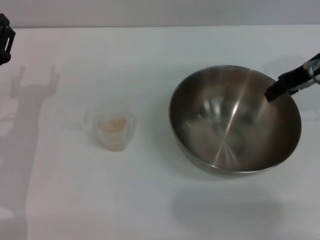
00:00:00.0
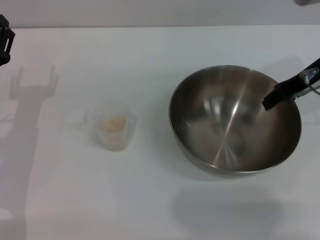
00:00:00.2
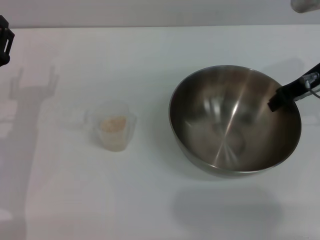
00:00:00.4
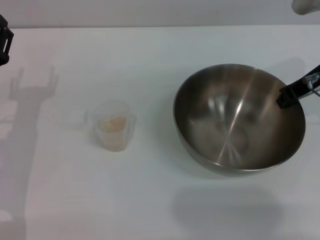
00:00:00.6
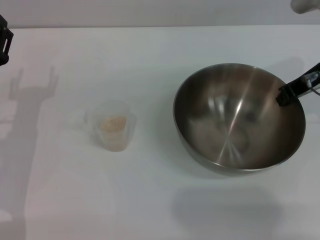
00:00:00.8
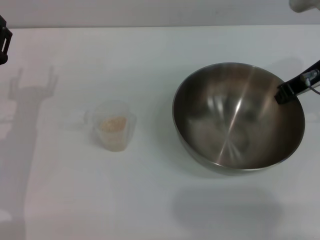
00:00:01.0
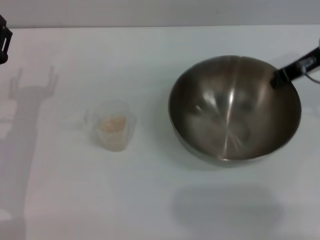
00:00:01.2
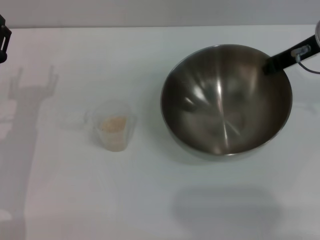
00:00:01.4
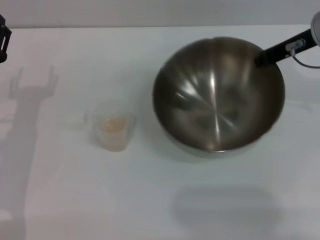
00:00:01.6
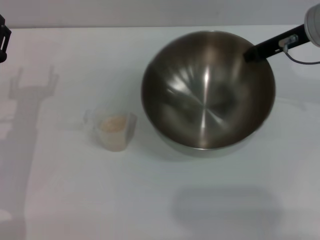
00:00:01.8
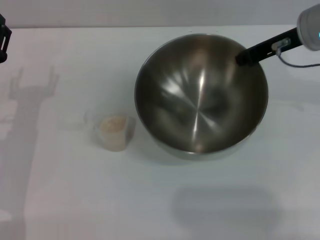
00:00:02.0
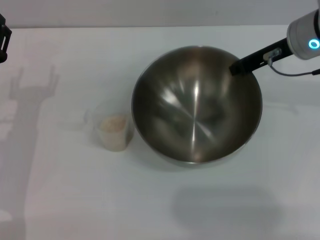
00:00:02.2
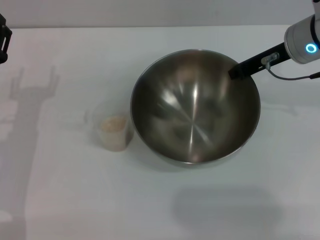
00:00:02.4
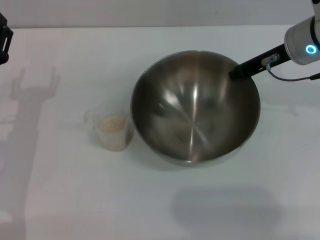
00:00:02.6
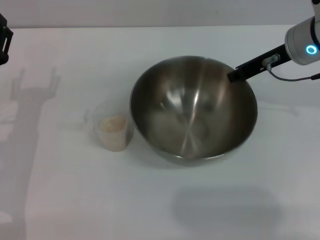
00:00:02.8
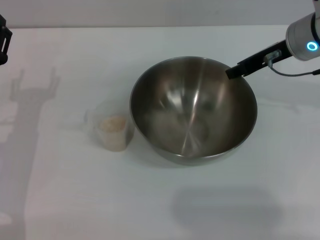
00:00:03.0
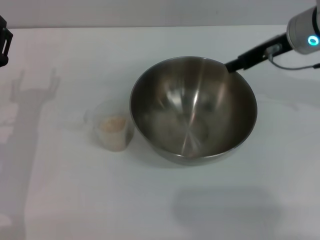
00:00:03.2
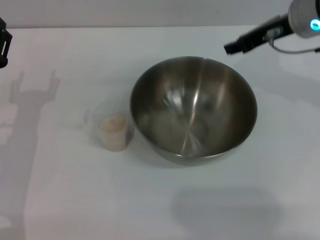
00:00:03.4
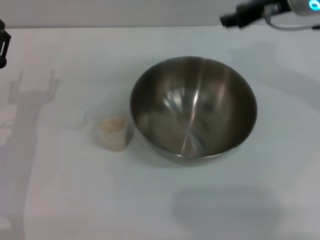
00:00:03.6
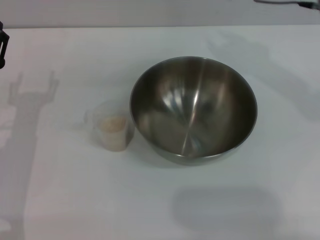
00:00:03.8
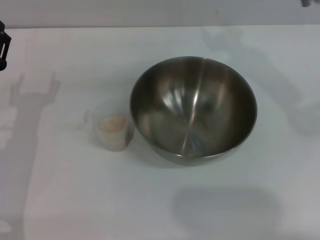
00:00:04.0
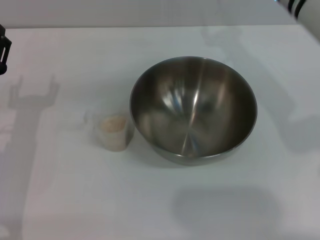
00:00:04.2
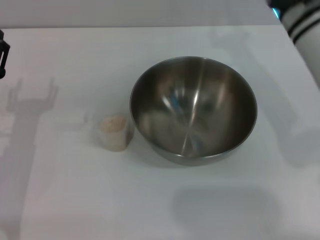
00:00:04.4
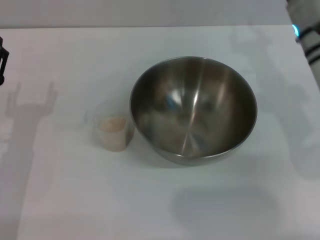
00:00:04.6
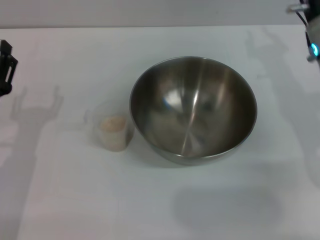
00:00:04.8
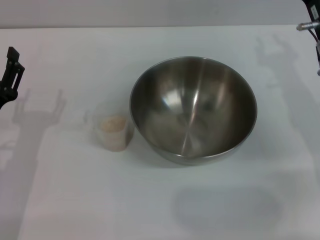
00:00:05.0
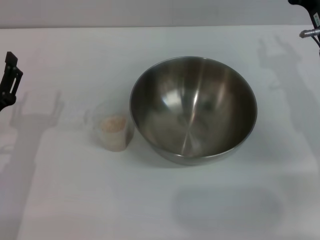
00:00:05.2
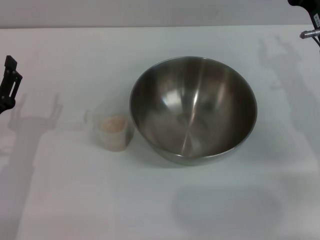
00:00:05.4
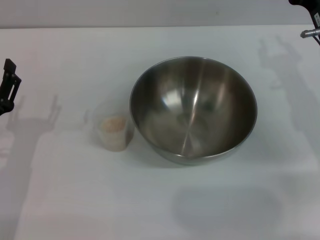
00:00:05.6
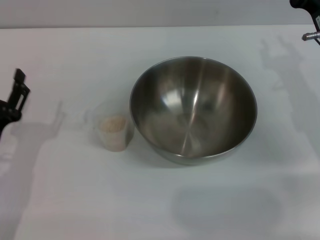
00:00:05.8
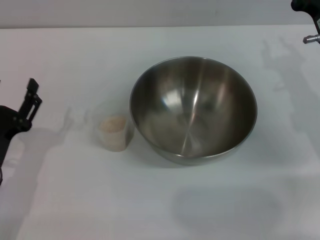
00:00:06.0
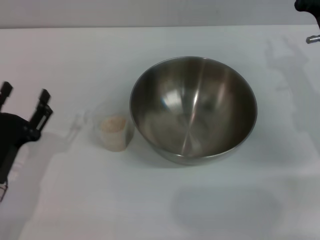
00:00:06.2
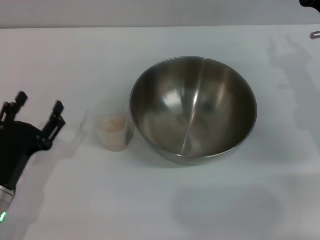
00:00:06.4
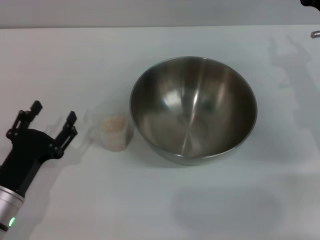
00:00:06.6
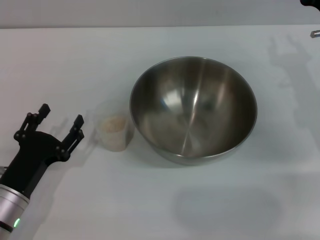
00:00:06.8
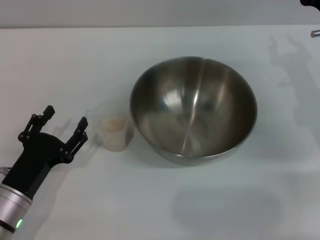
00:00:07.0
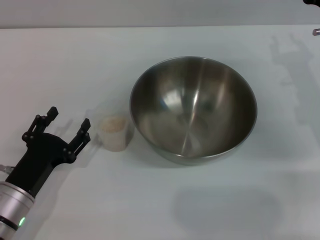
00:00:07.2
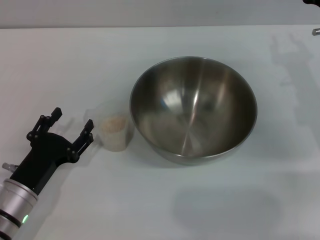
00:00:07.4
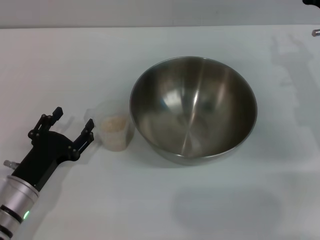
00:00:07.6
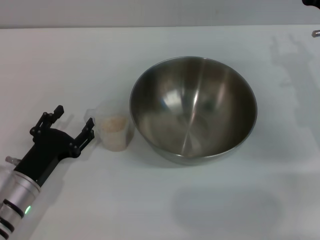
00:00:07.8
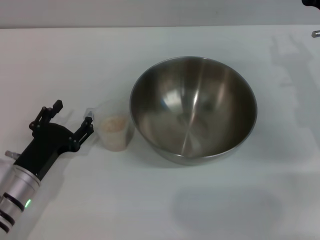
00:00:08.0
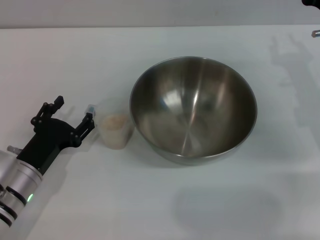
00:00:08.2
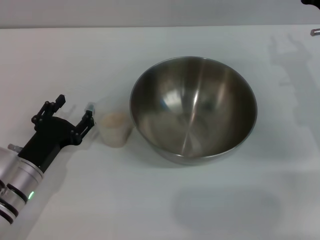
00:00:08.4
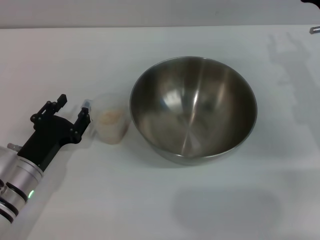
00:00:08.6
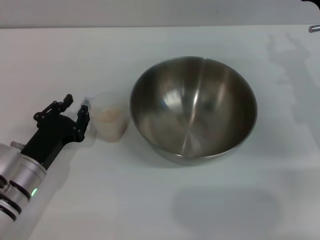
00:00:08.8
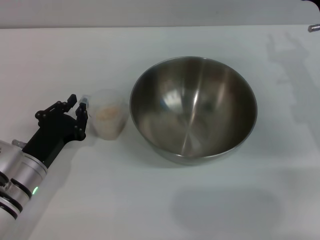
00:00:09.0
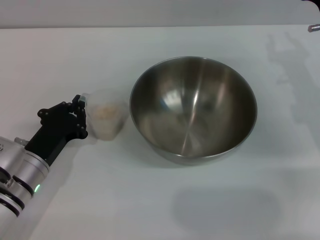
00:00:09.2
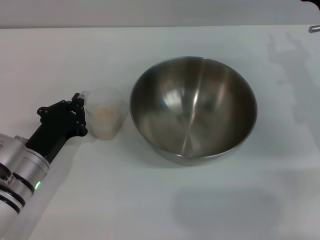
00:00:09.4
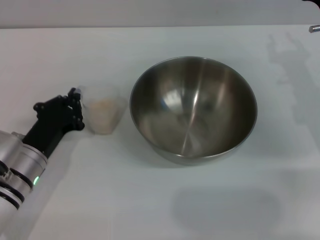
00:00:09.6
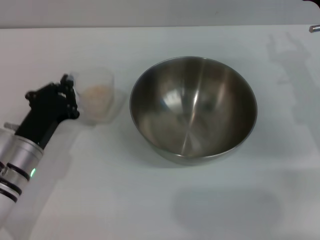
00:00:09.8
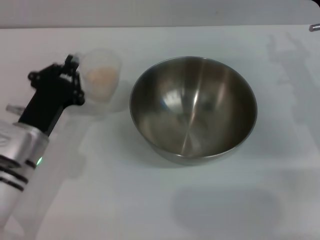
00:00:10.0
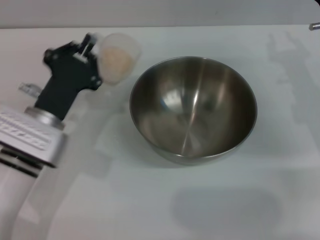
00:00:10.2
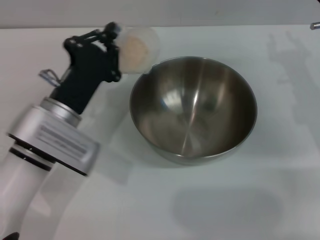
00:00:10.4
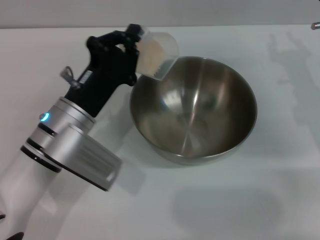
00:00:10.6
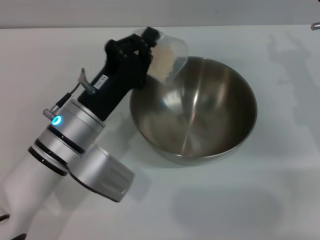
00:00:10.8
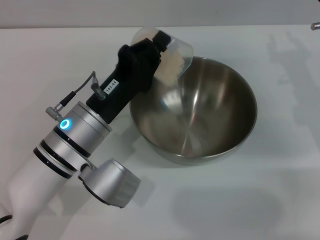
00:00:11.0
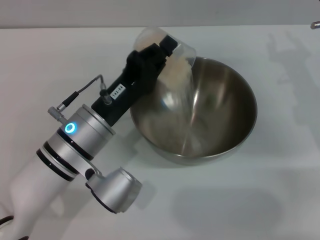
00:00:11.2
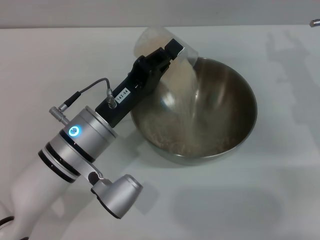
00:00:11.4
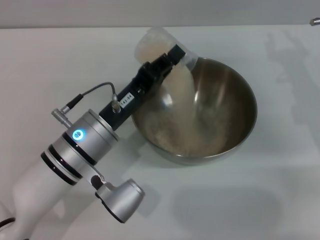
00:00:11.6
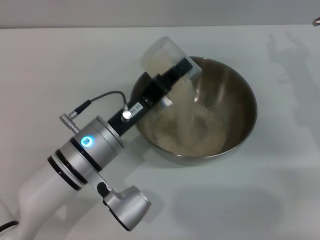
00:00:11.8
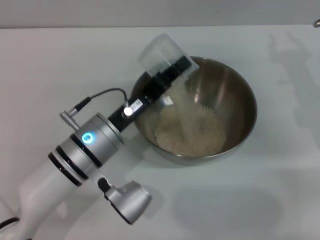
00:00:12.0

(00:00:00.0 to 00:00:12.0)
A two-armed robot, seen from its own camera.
Task of the whole recording: Place the bowl in the middle of the table with one hand and pour the rice from the grain cup into it with the other hand.
Step, 00:00:00.0 - 00:00:02.0: Pick up the bowl with the right gripper.
Step, 00:00:02.2 - 00:00:03.2: Place the bowl in the center of view with the right gripper.
Step, 00:00:03.4 - 00:00:10.2: Pick up the cup with rice in it with the left gripper.
00:00:00.0 - 00:00:01.6: The right gripper closes.
00:00:01.6 - 00:00:03.0: The grippers move only a little.
00:00:03.0 - 00:00:04.4: The right gripper opens.
00:00:04.4 - 00:00:06.0: The right gripper heads to the right and downward, covering roughly 10 cm. Meanwhile the left gripper travels backward by roughly 5 cm.
00:00:07.6 - 00:00:09.0: The left gripper closes up.
00:00:09.0 - 00:00:10.4: The left gripper is displaced upward and to the right by about 10 cm, and closes.
00:00:10.4 - 00:00:12.0: The left gripper shifts some 5 cm to the right.

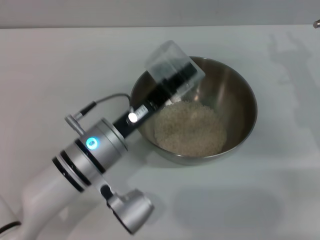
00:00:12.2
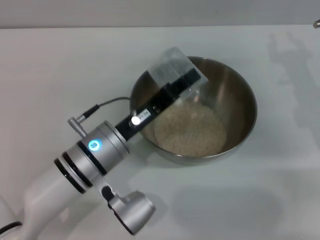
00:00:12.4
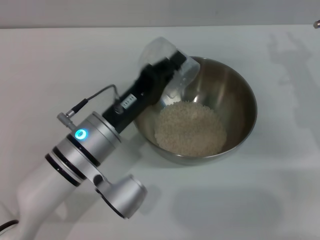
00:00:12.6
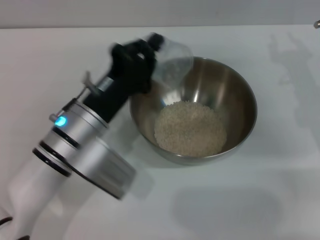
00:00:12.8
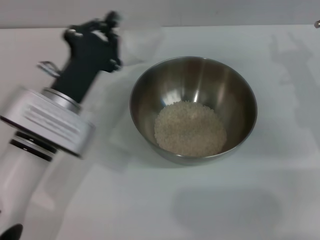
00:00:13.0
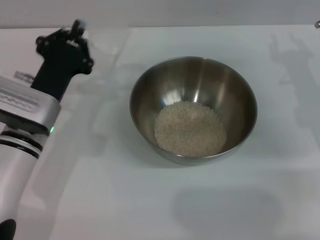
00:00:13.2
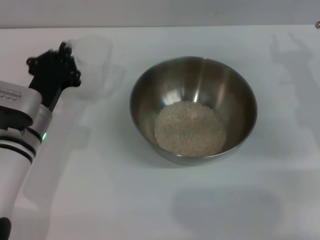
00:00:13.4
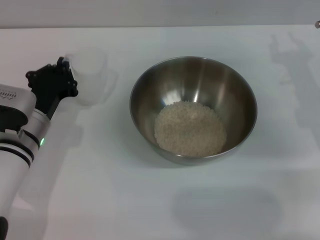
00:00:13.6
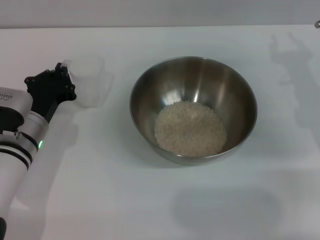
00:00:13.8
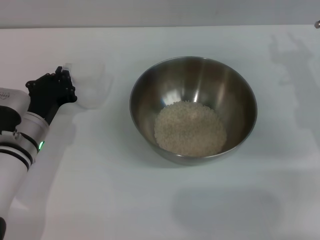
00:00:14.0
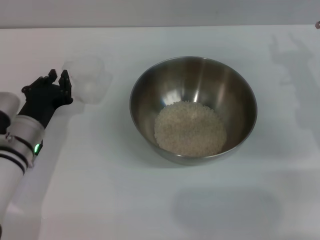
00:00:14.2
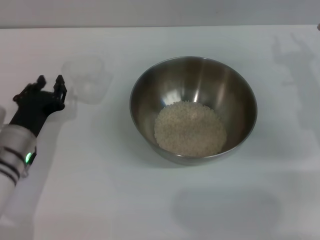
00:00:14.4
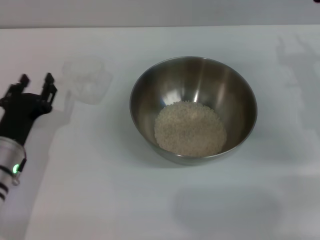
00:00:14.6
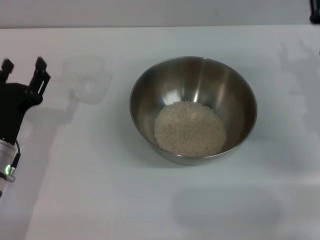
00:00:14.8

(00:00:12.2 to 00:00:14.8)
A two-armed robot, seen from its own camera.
Task of the whole recording: Place the bowl in the middle of the table with one hand and pour the rice from the grain cup into it with the other hand.
Step, 00:00:12.4 - 00:00:14.6: Place the cup on the table with the left gripper.
00:00:12.2 - 00:00:13.4: The left gripper heads to the left, covering approximately 10 cm.
00:00:13.4 - 00:00:14.8: The left gripper moves backward, about 5 cm, and opens.
